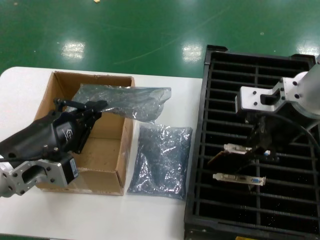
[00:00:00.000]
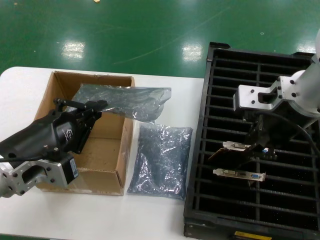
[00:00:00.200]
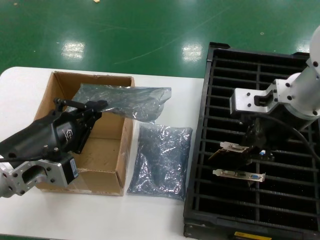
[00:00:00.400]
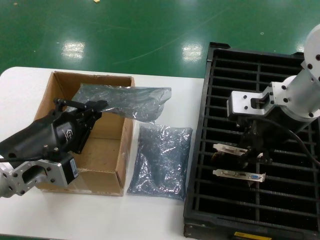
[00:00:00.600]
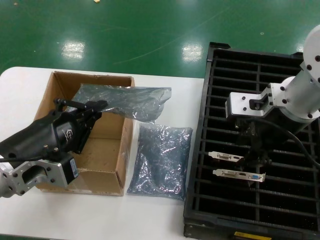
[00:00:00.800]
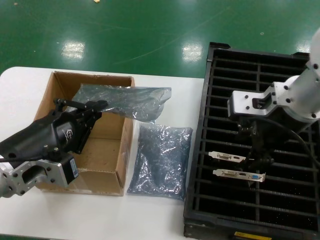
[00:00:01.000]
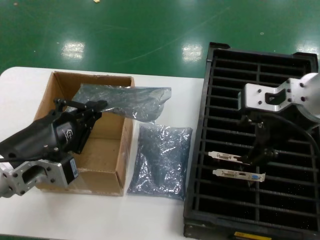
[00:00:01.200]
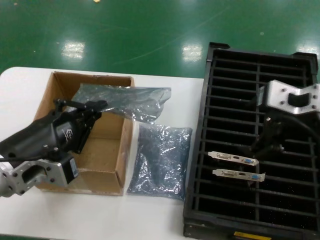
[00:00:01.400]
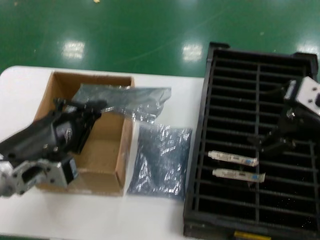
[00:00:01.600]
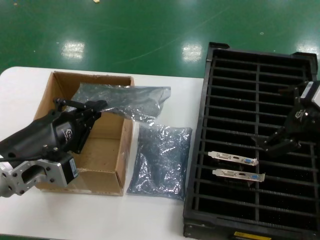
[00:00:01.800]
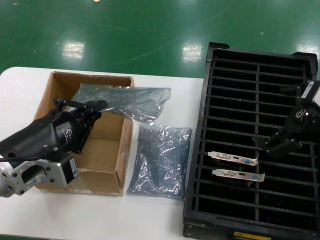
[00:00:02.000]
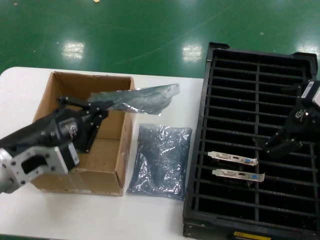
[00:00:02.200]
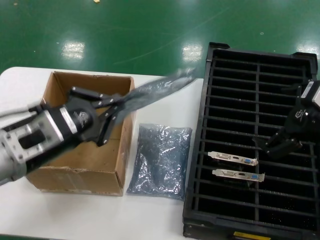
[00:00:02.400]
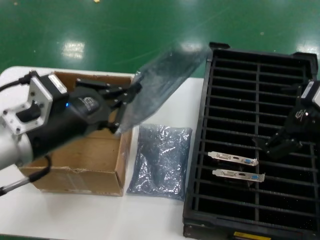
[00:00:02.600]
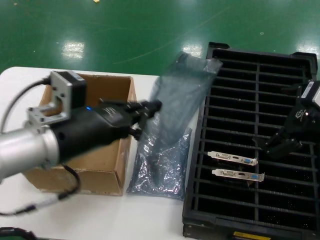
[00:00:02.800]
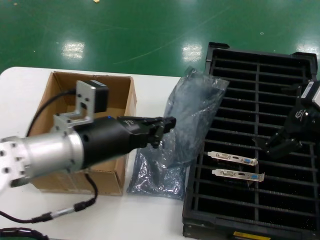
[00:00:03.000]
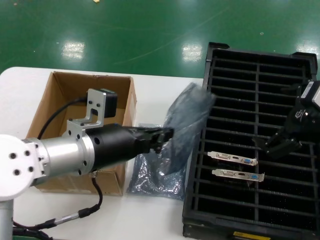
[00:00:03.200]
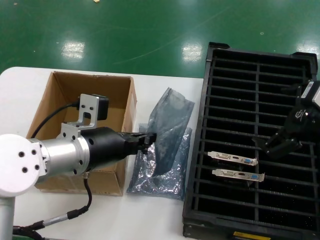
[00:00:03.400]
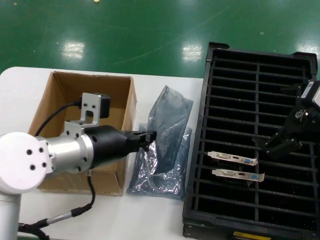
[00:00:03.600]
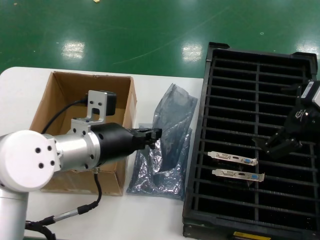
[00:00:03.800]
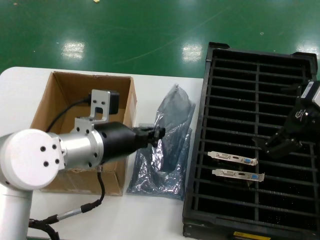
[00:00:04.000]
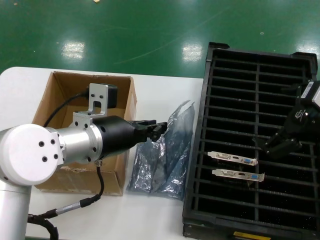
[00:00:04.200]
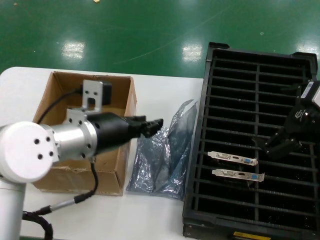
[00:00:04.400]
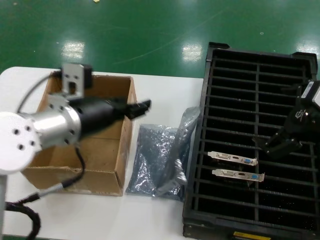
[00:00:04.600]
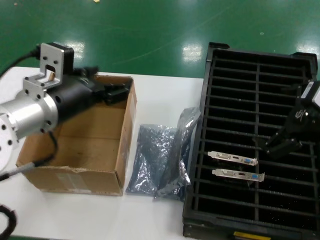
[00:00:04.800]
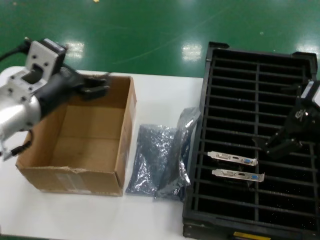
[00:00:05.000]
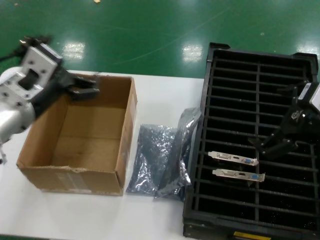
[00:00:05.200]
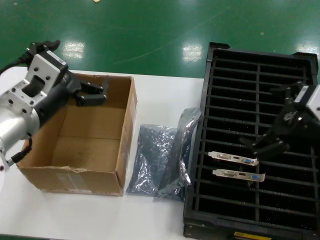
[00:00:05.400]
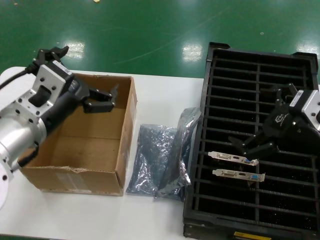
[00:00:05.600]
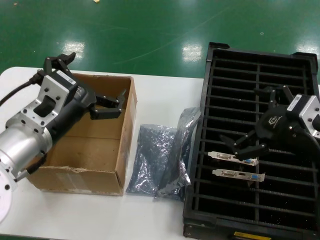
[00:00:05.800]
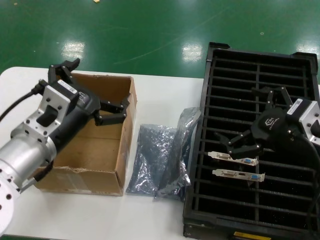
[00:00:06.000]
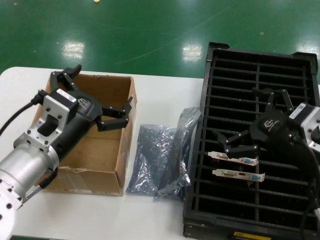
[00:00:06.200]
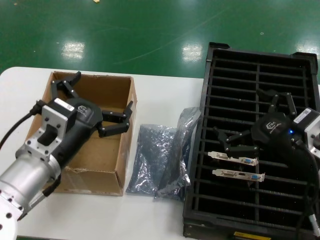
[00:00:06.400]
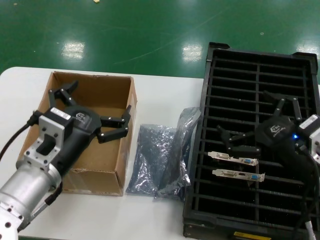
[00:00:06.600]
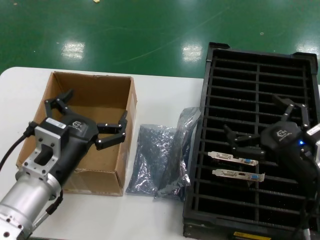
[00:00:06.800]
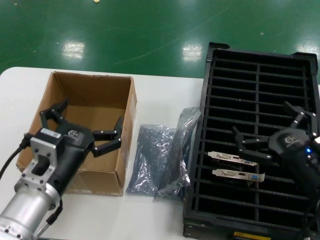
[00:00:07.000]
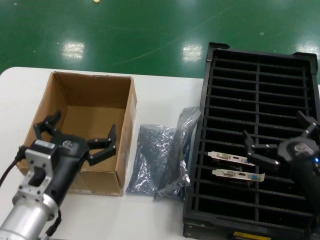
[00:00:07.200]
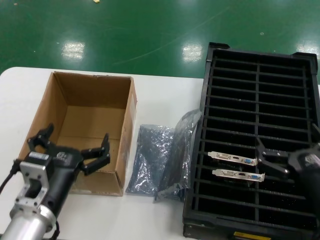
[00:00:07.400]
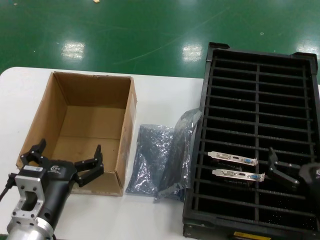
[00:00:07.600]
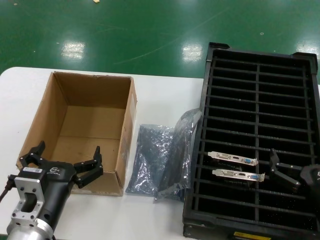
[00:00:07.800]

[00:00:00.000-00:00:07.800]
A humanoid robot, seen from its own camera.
Task of the whole recording: take out graphics card from box remove packaging put into black container.
Step, 00:00:01.400 to 00:00:04.600: Place the down the bag.
00:00:00.000 to 00:00:01.600: The right hand heads to the right, covering approximately 10 cm.
00:00:01.600 to 00:00:03.200: The left hand goes about 10 cm to the right and forward.
00:00:04.600 to 00:00:06.200: The right hand heads downward, covering approximately 10 cm. Meanwhile the left hand heads backward and downward, covering about 5 cm.
00:00:06.200 to 00:00:07.800: The hands both shift downward and backward by roughly 15 cm.
